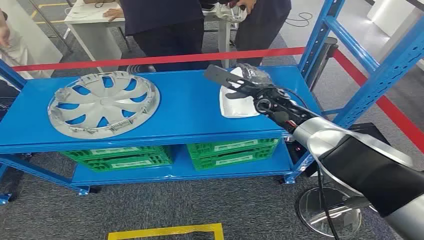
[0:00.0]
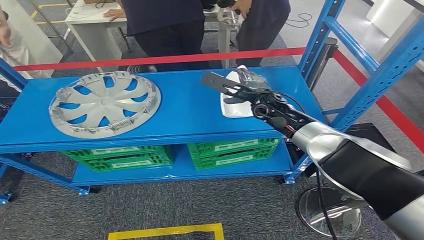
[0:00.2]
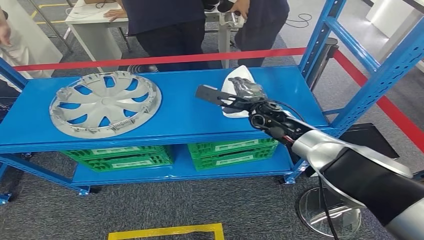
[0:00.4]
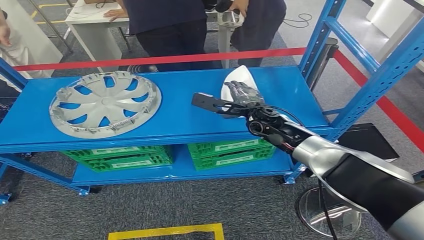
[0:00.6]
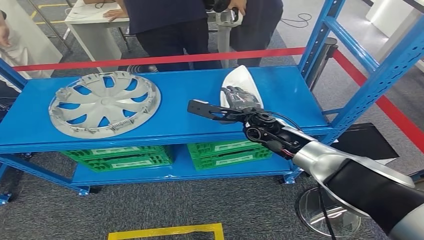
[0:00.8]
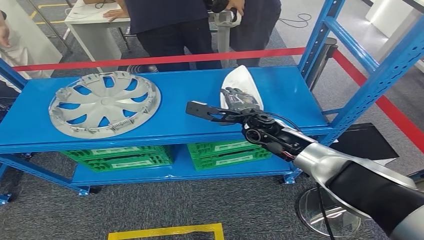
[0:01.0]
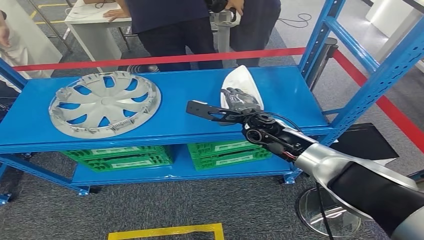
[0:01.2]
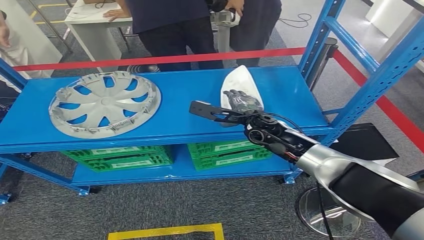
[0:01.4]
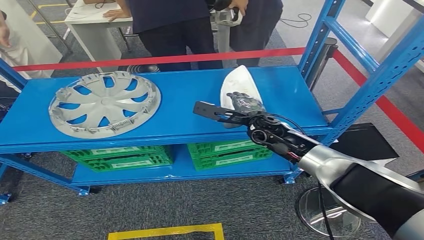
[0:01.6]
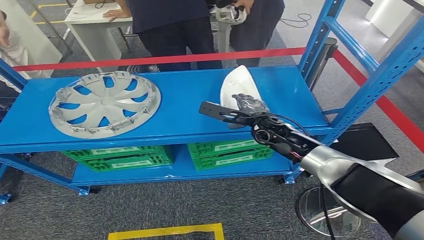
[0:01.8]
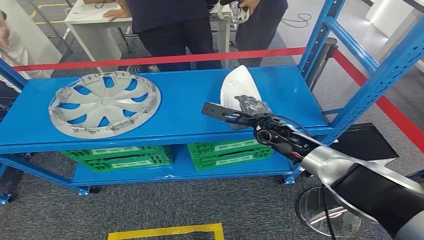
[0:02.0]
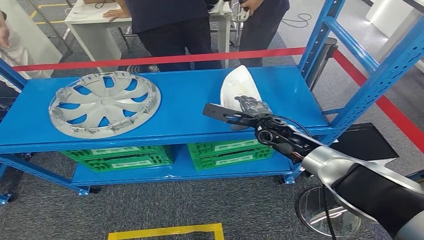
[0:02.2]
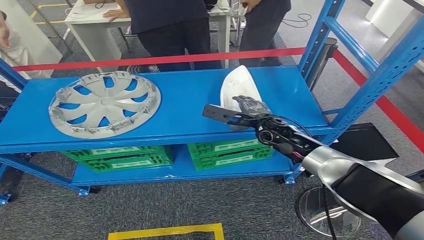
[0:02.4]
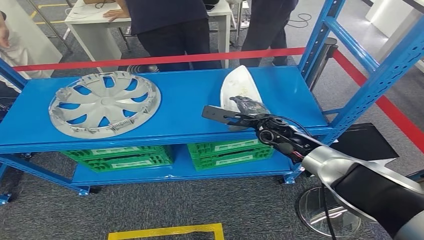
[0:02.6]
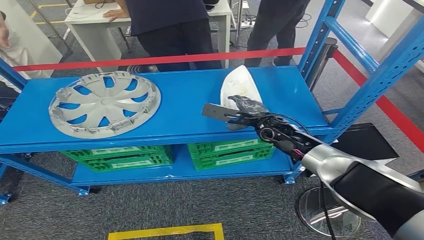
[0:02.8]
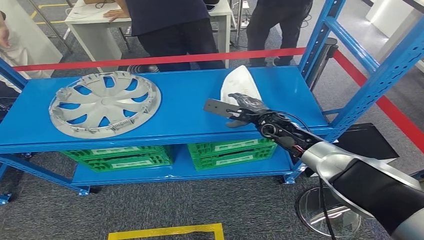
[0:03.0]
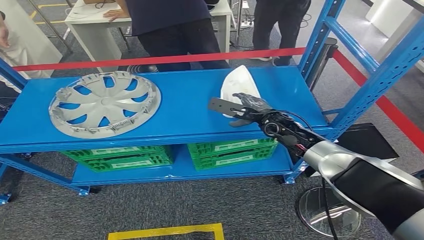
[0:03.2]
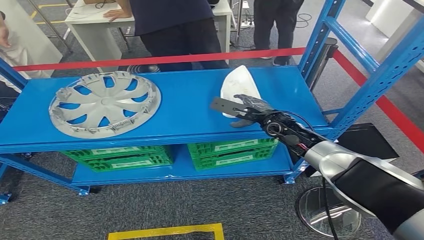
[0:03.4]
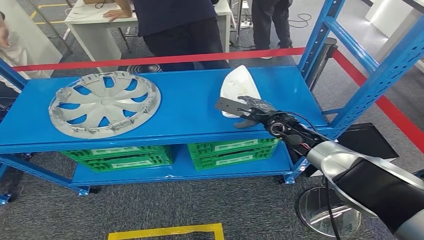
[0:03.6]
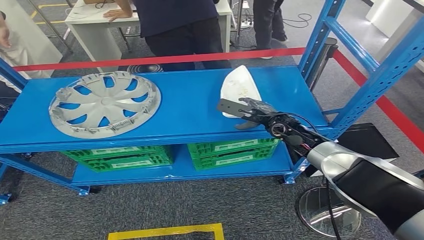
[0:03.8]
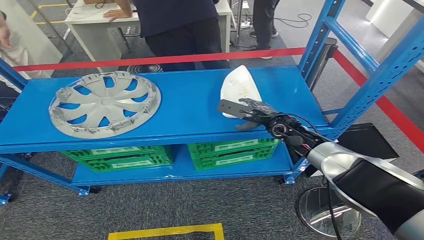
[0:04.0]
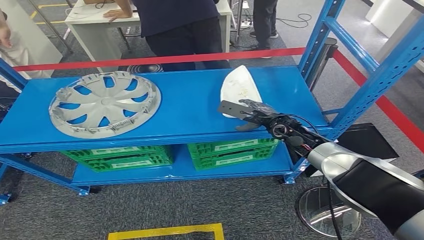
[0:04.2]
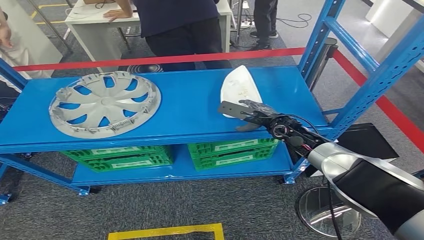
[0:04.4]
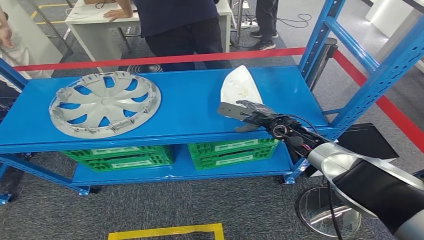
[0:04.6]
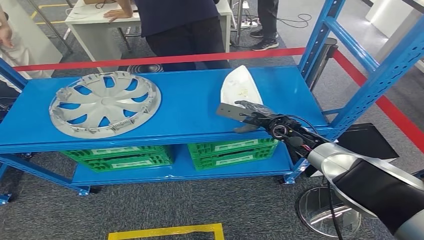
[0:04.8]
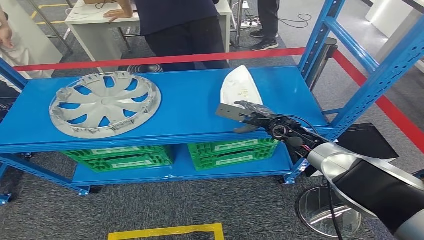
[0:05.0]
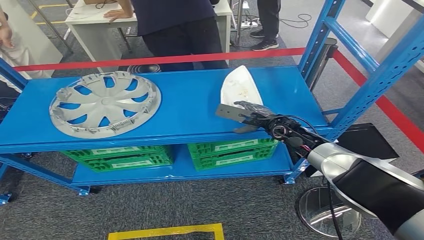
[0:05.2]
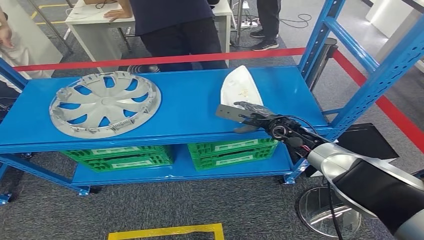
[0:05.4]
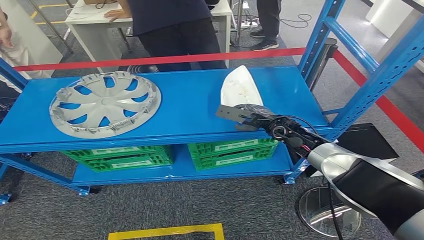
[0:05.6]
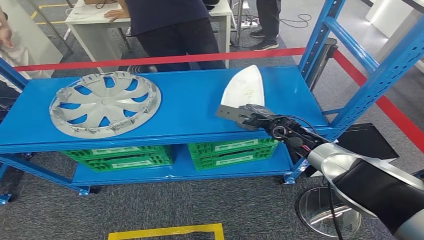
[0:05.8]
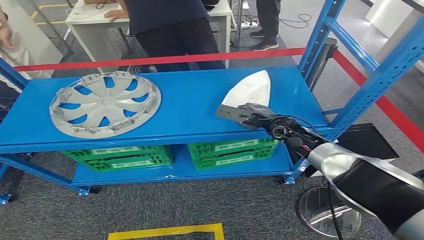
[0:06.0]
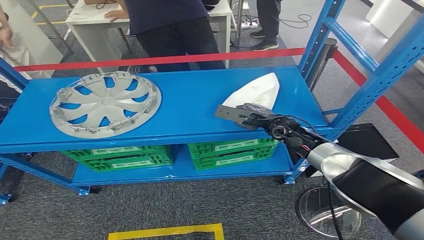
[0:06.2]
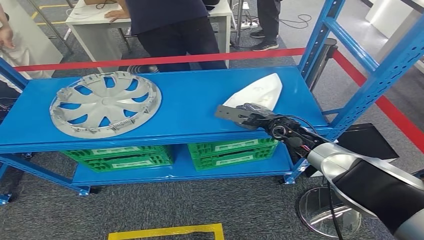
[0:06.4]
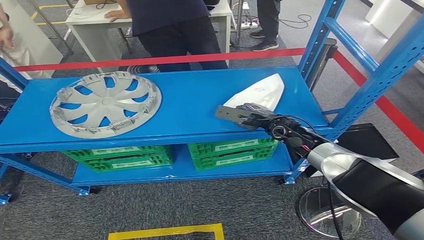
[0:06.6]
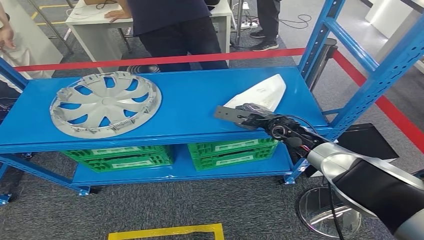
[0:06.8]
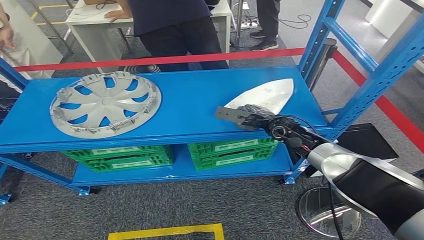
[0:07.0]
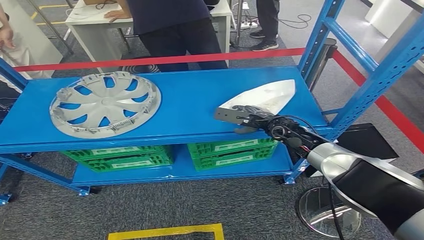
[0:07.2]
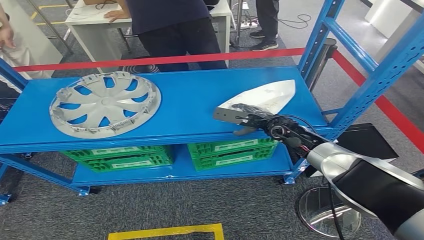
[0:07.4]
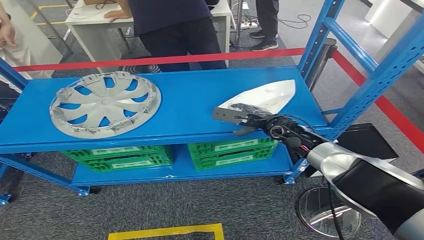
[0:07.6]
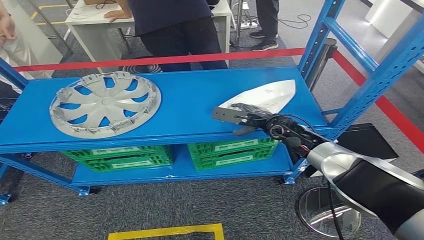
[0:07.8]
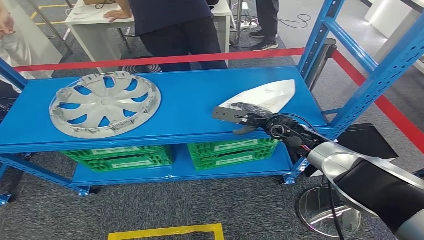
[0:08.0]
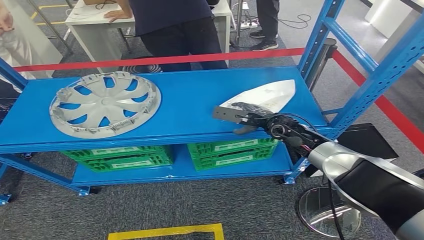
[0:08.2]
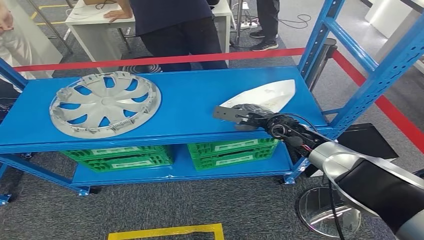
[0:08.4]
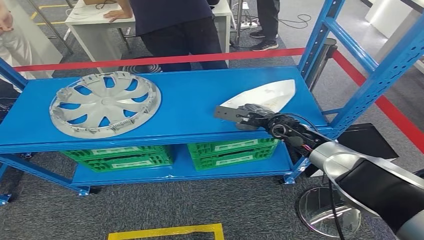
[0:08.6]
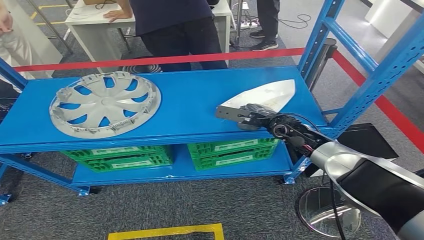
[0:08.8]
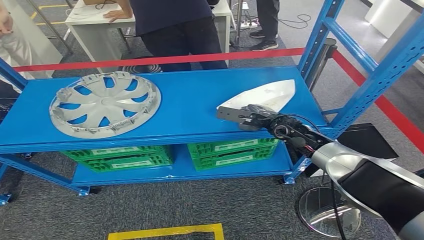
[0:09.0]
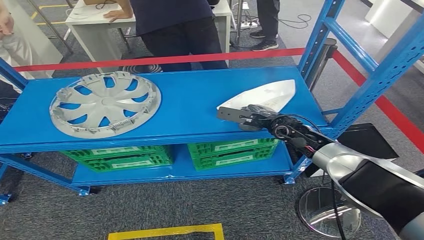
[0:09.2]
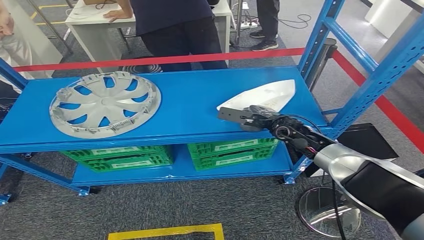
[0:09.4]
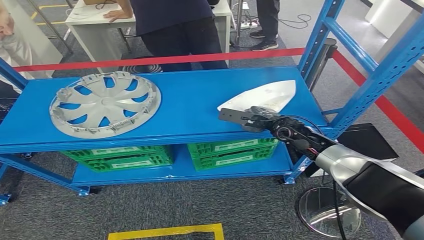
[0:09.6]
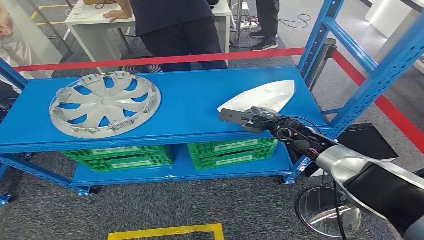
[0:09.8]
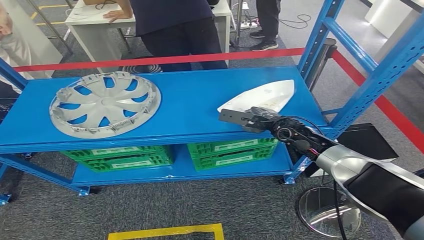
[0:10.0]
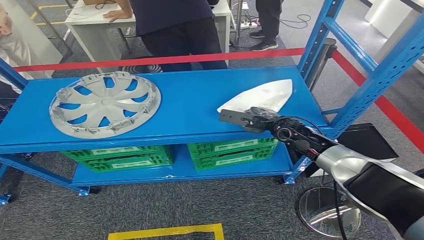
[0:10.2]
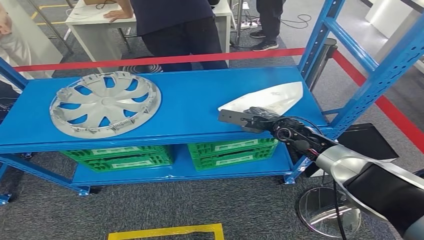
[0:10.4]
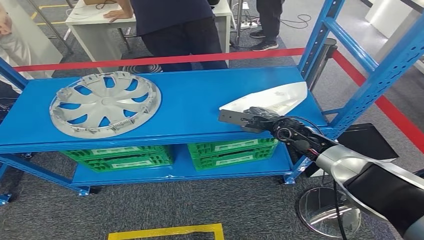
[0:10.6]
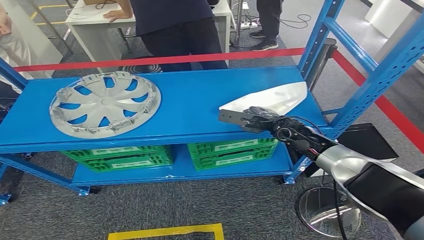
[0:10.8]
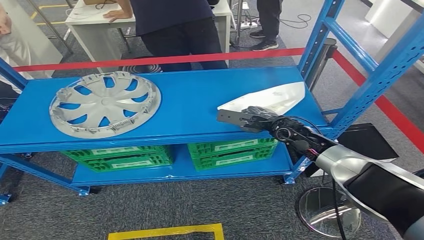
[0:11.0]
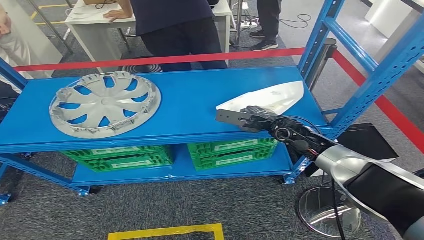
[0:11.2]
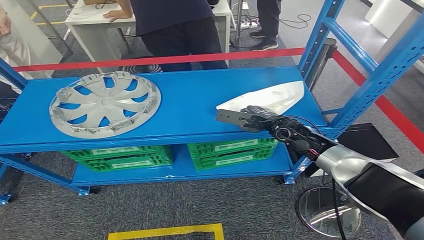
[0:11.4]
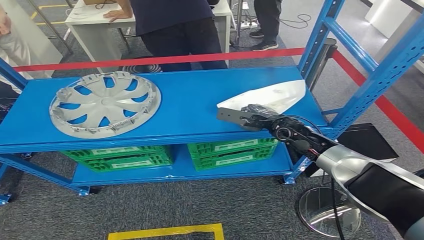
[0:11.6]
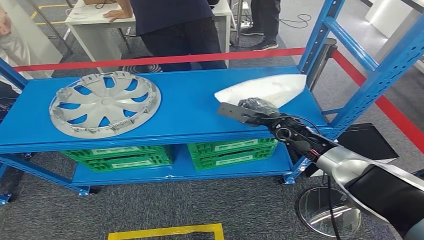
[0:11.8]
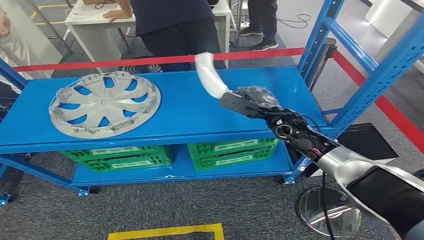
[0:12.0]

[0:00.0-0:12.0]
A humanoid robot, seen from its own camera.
0:01.6 to 0:03.0: The hands make only small movements.
0:03.0 to 0:04.4: The hands stay close to where they were, moving slightly.
0:04.4 to 0:06.0: Neither hand changes place.
0:06.0 to 0:07.6: The two hands keep their place.
0:07.6 to 0:09.0: The two hands keep their place.
0:09.0 to 0:10.4: The two hands keep their place.

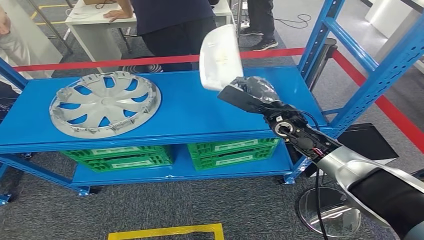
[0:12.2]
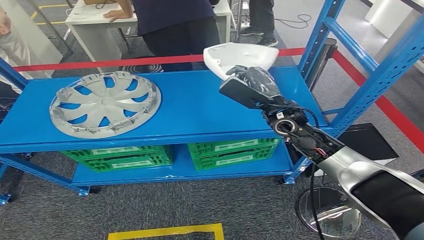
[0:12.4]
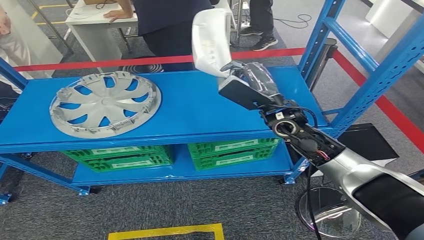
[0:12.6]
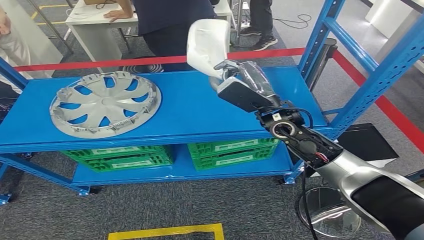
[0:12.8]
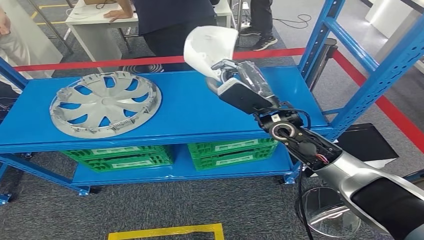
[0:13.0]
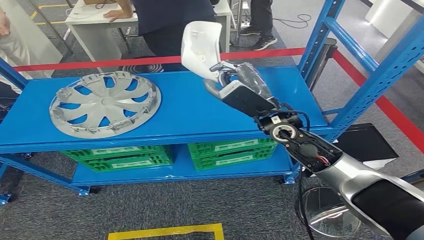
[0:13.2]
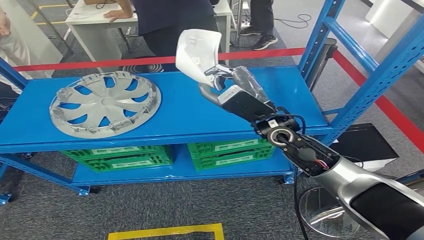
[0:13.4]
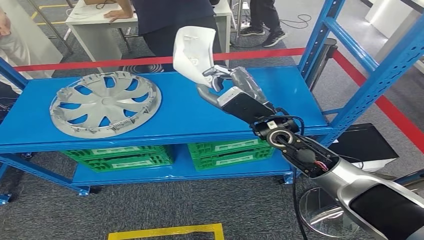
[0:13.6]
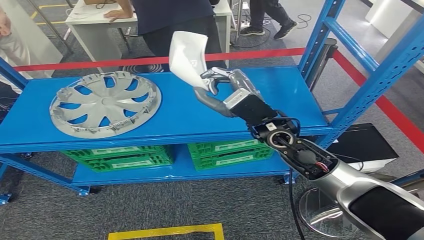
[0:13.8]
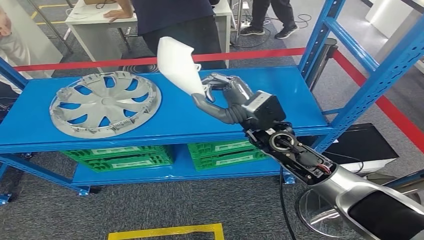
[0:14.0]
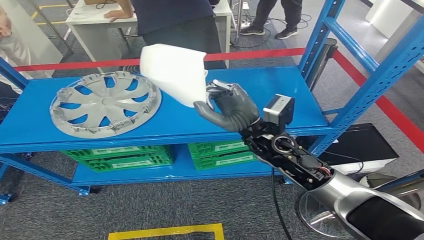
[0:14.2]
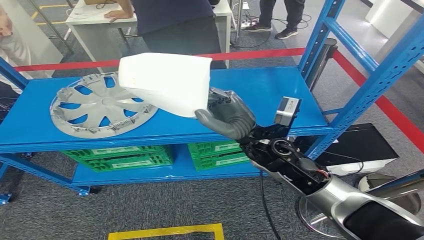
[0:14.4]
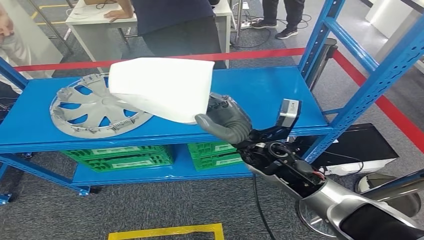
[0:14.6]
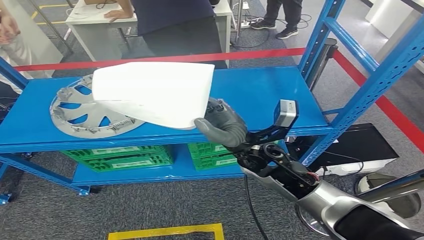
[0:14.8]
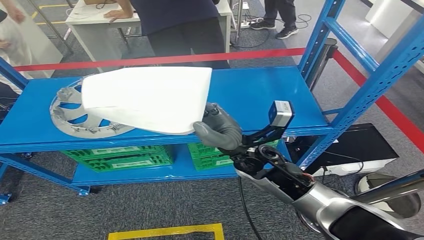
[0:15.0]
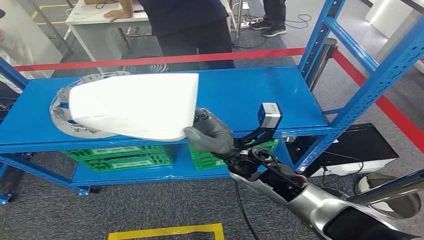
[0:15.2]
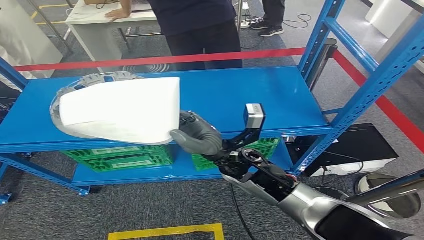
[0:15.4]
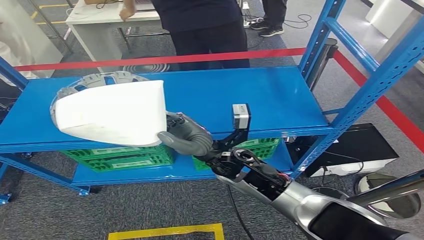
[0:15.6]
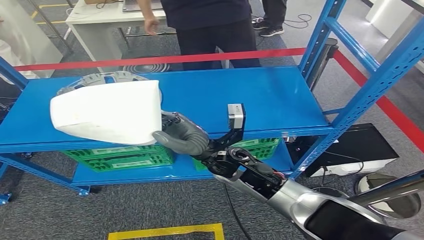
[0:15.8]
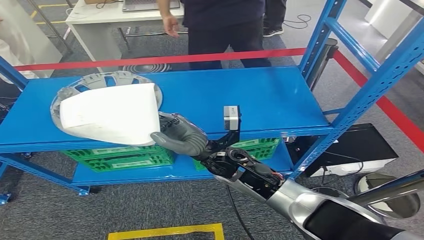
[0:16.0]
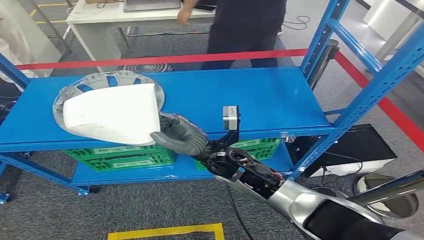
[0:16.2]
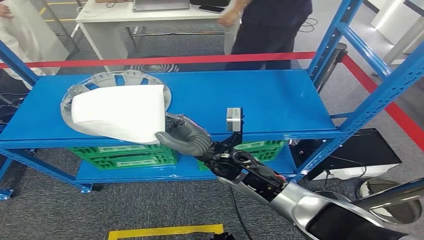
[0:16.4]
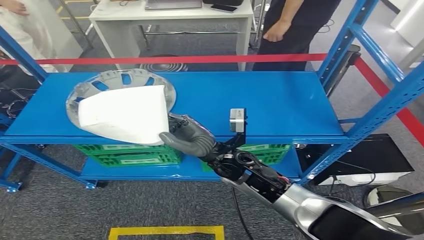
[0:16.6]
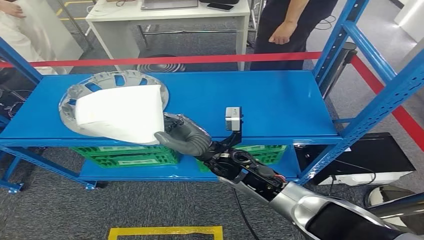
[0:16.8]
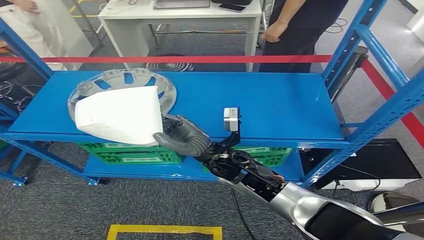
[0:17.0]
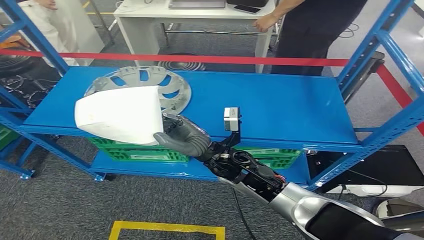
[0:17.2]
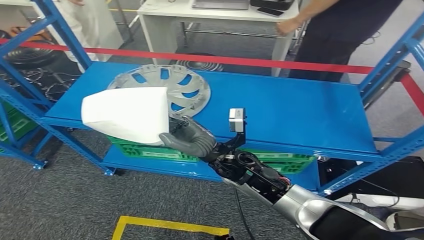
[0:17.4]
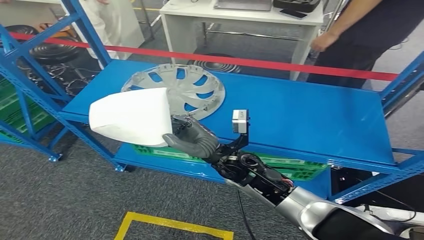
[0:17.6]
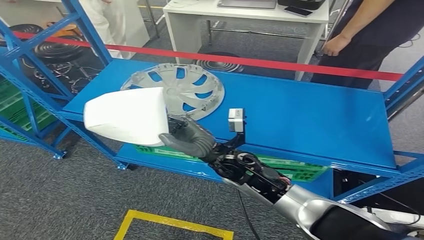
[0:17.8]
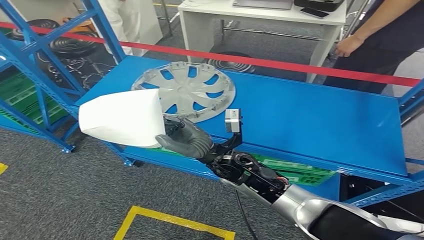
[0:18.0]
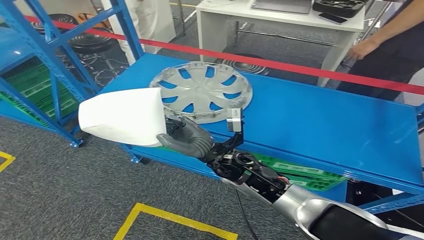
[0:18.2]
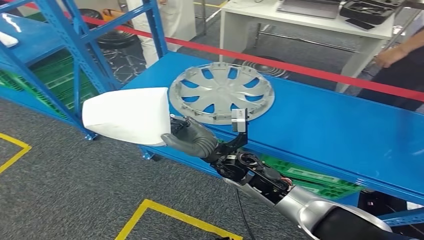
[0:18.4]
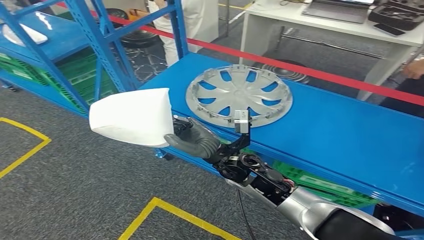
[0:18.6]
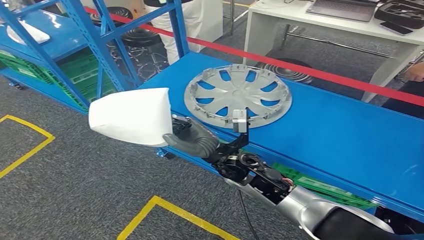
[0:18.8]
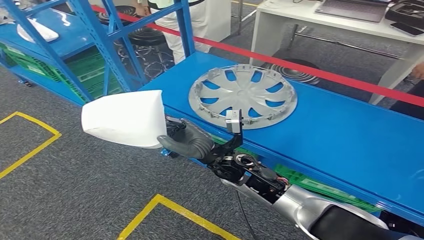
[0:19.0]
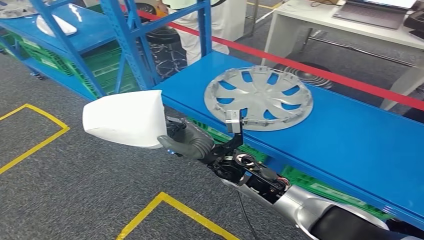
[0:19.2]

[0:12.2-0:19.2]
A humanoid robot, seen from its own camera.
0:12.2 to 0:13.6: The right hand shifts roughly 10 cm upward, to the left and backward.
